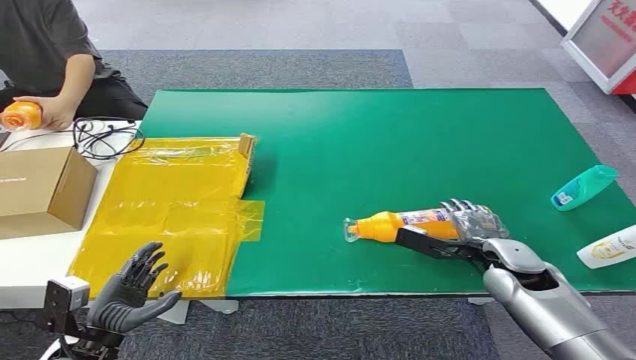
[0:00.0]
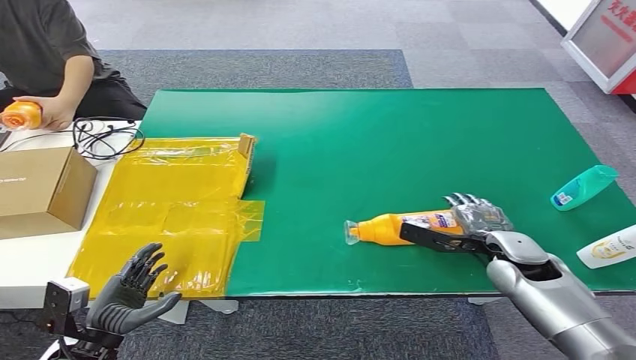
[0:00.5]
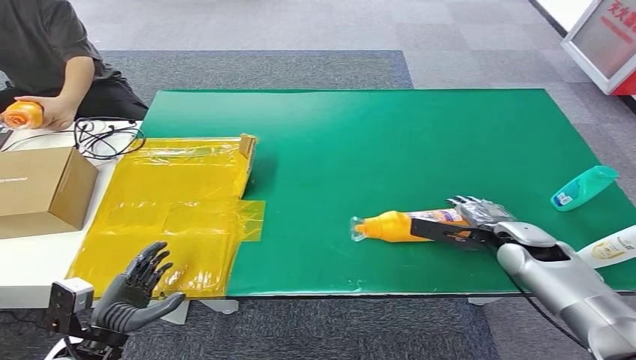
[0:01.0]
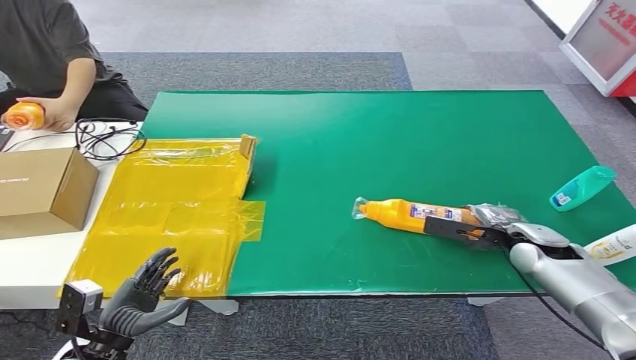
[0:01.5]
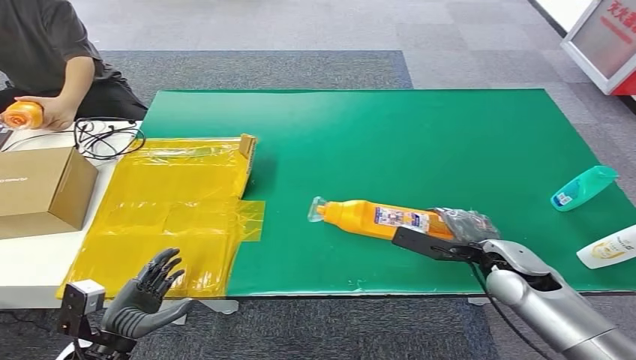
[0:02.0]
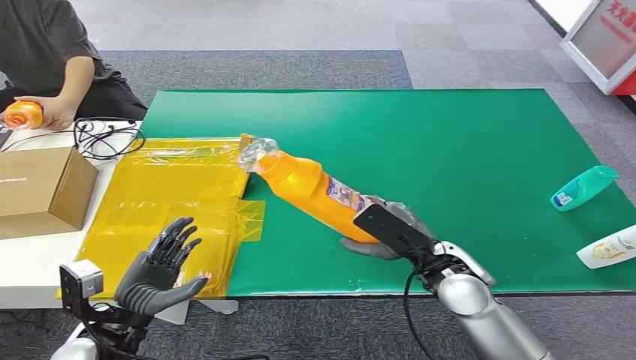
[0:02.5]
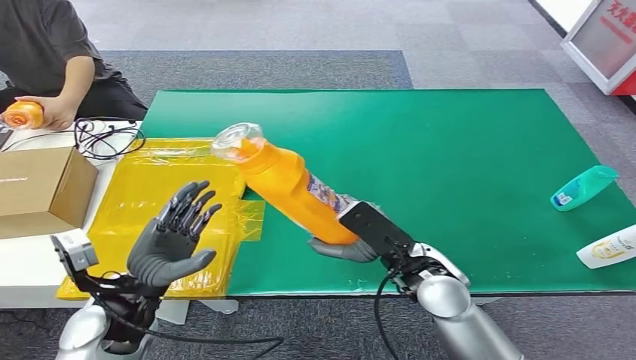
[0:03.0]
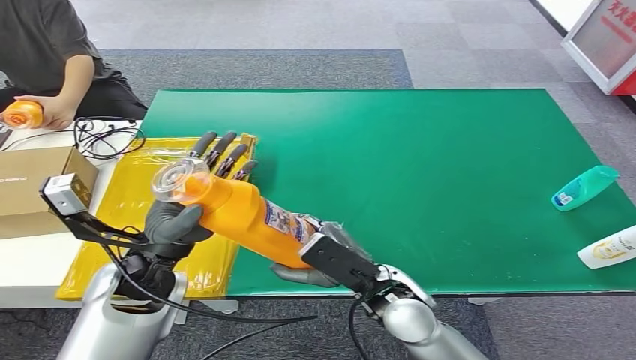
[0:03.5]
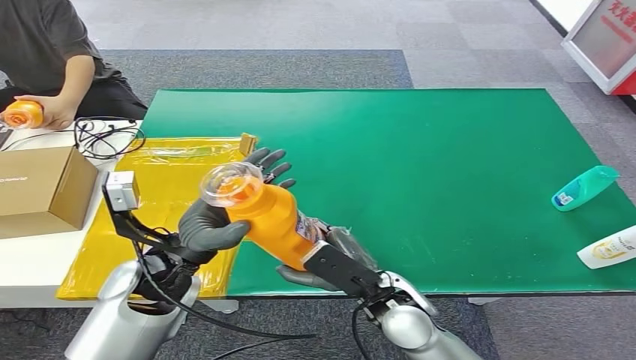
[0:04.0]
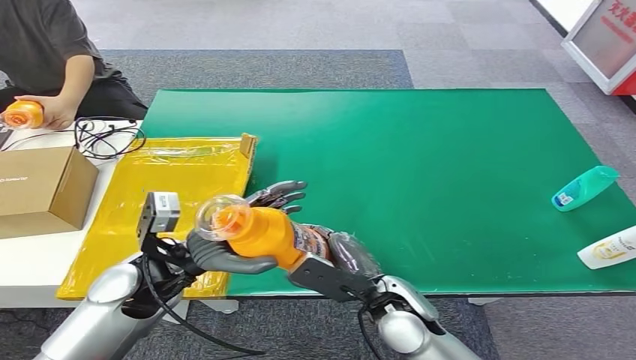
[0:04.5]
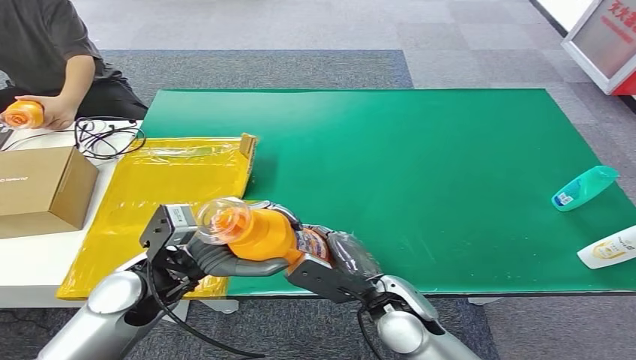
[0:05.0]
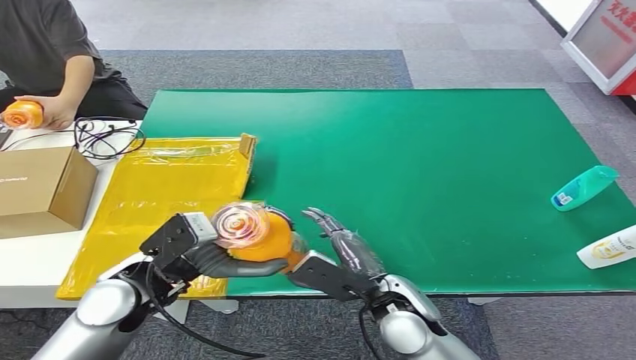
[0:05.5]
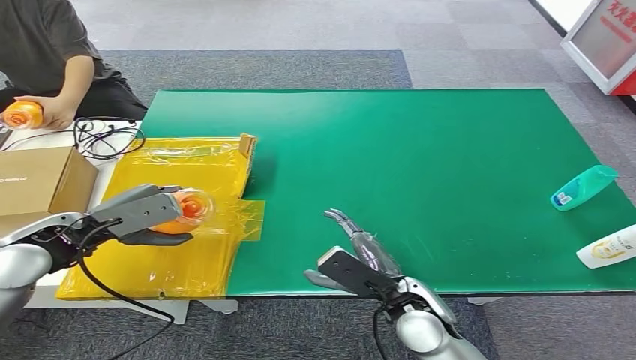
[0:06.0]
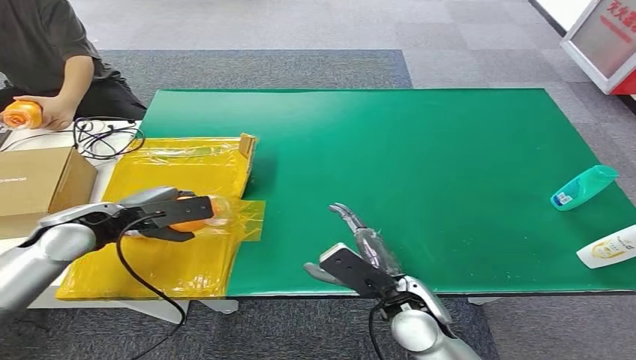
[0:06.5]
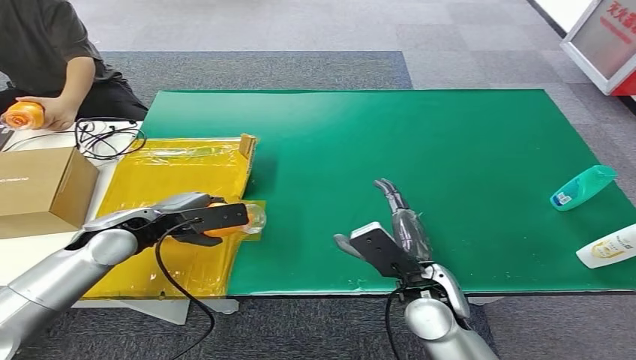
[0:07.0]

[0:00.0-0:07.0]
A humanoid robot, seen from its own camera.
Step, 0:00.0 to 0:02.5: Pick up the bottle from the table.
Step, 0:03.0 to 0:07.0: Turn the bottle to the front side.
0:05.0 to 0:07.0: The left hand heads to the left and forward, covering roughly 15 cm.

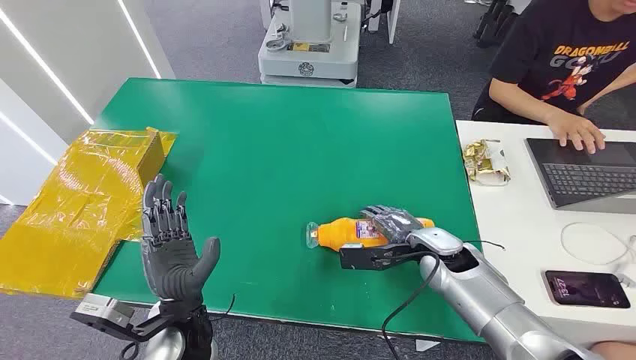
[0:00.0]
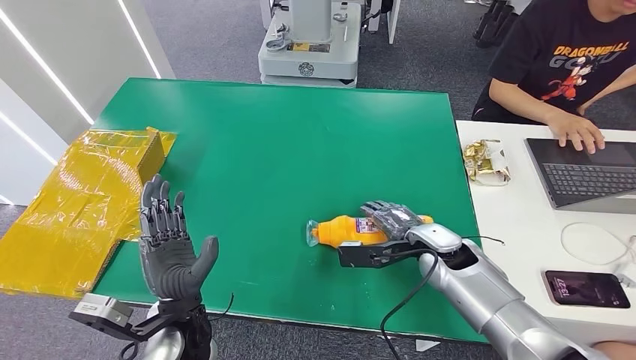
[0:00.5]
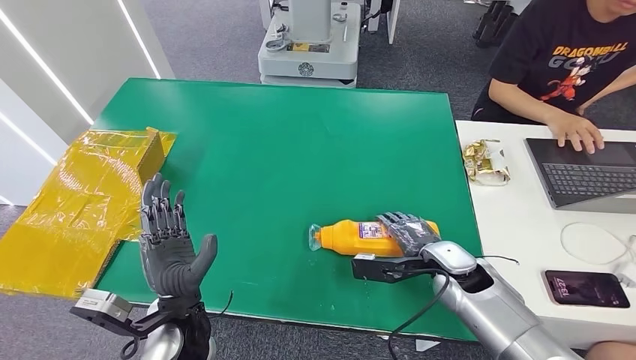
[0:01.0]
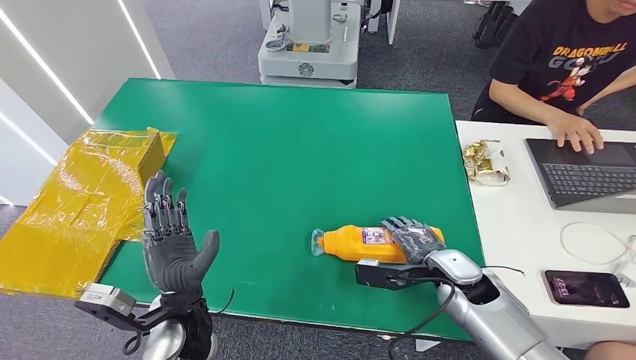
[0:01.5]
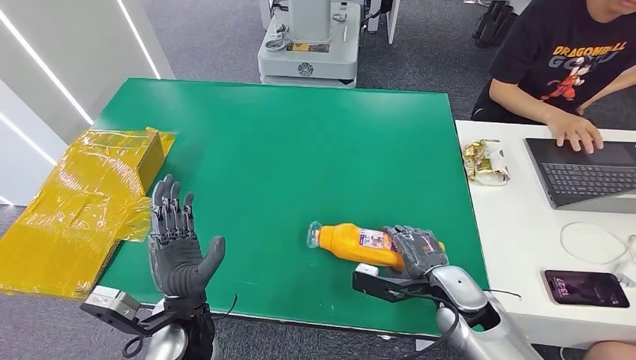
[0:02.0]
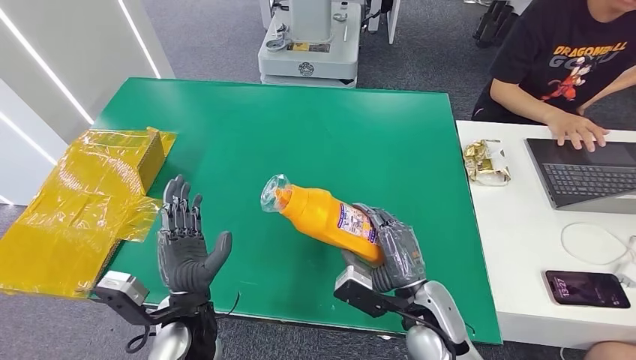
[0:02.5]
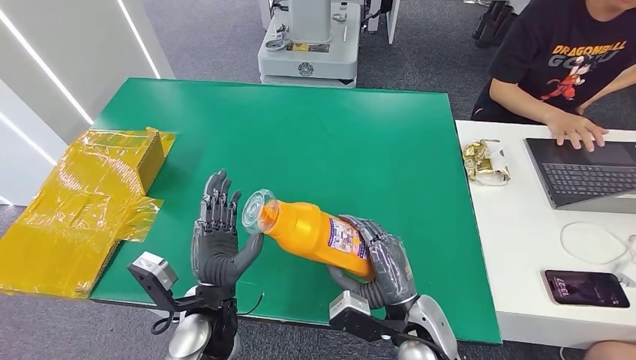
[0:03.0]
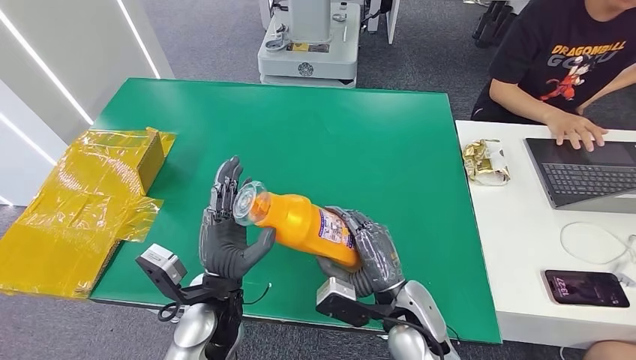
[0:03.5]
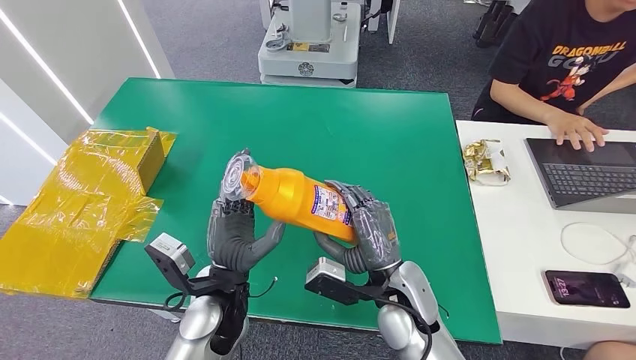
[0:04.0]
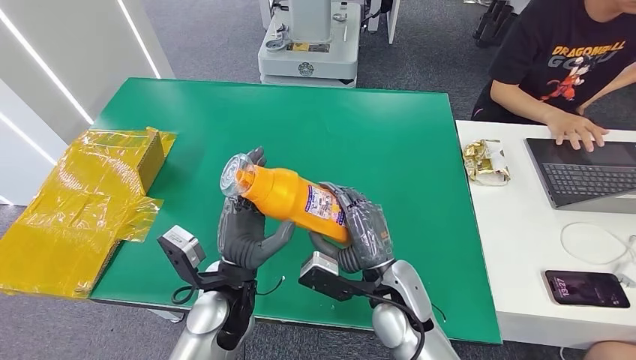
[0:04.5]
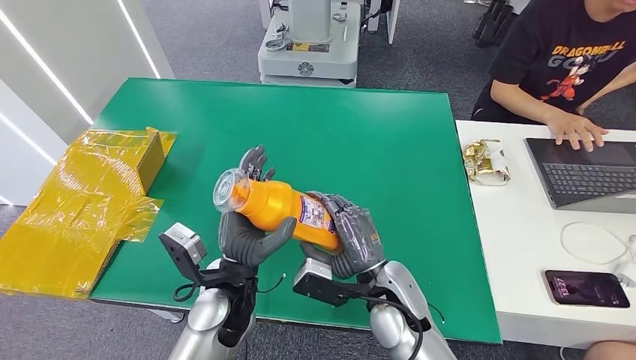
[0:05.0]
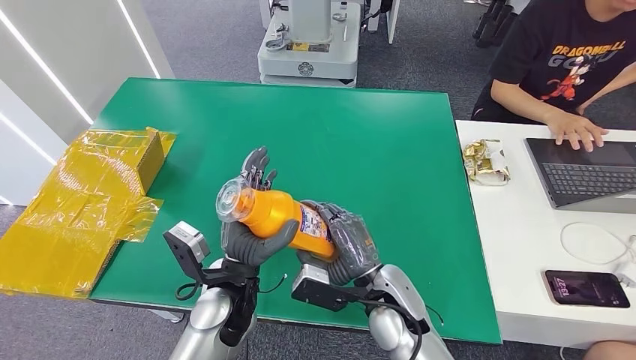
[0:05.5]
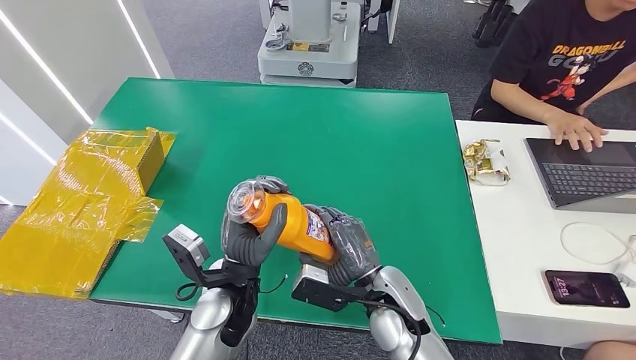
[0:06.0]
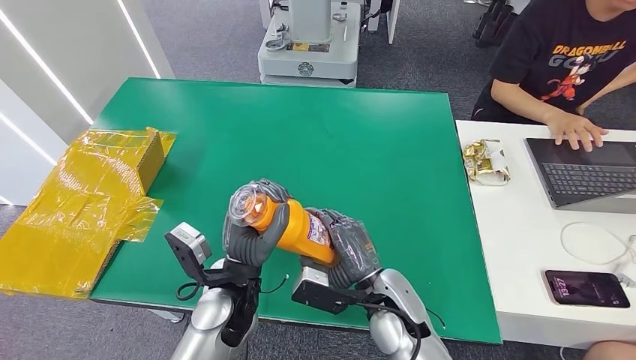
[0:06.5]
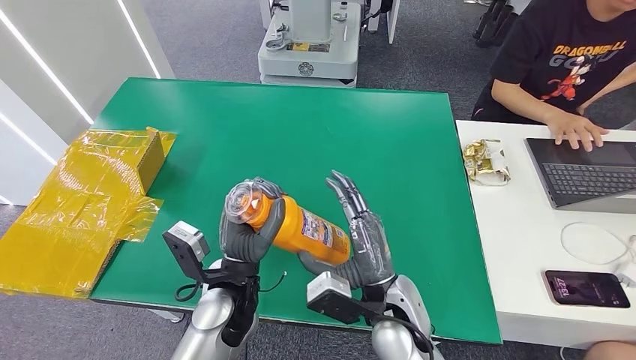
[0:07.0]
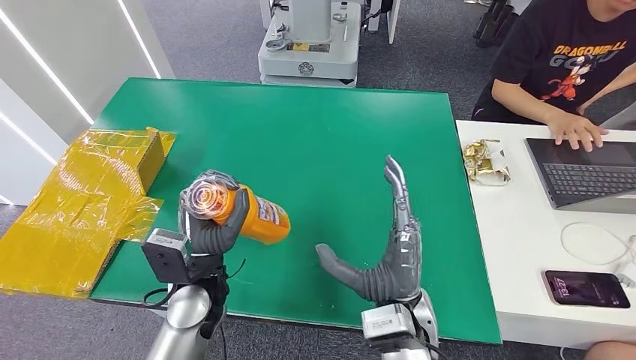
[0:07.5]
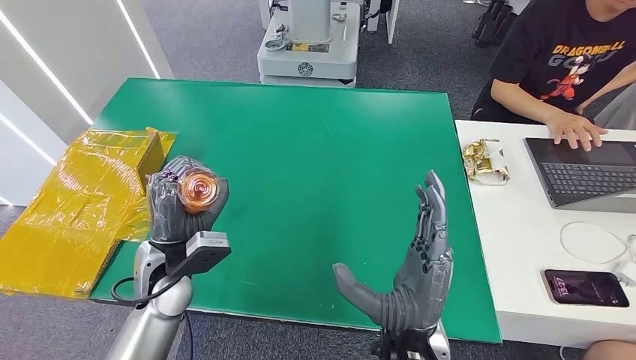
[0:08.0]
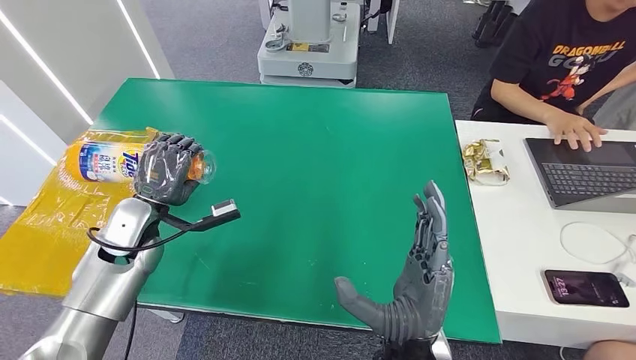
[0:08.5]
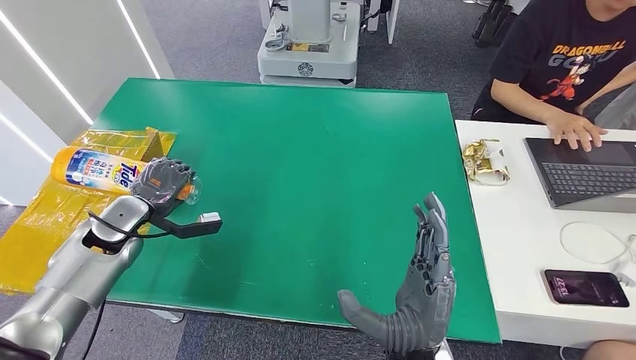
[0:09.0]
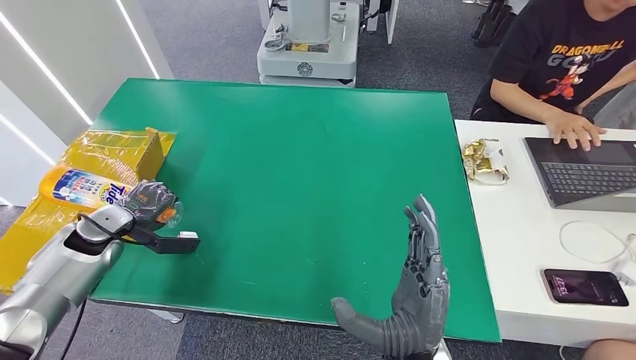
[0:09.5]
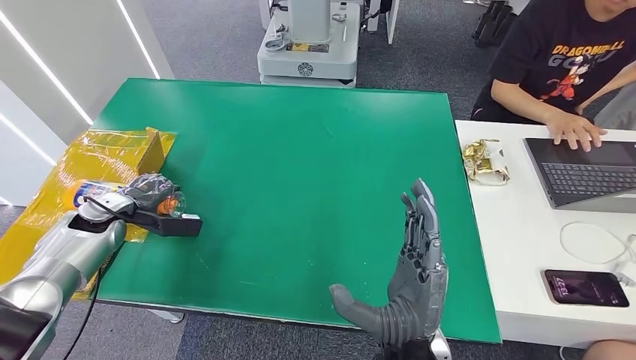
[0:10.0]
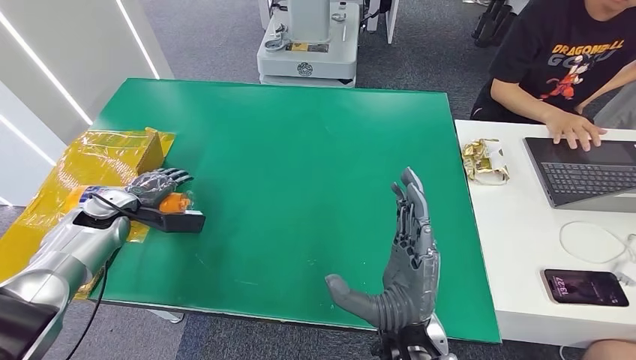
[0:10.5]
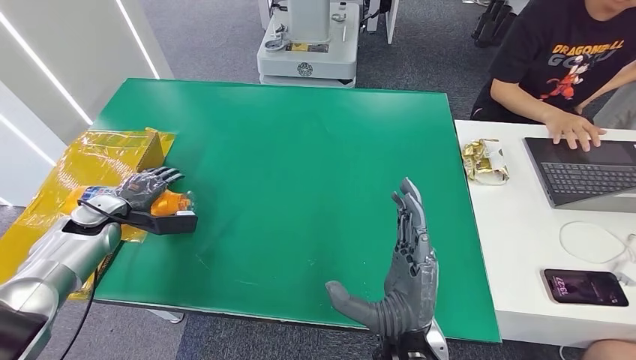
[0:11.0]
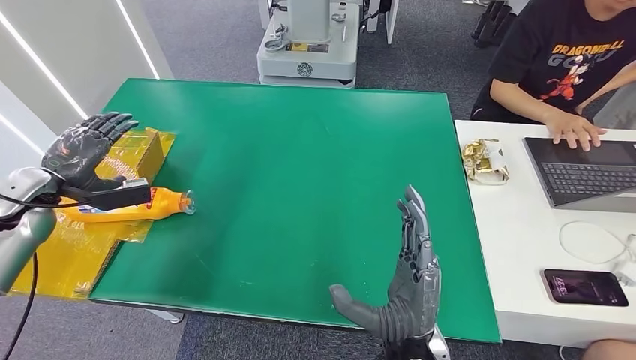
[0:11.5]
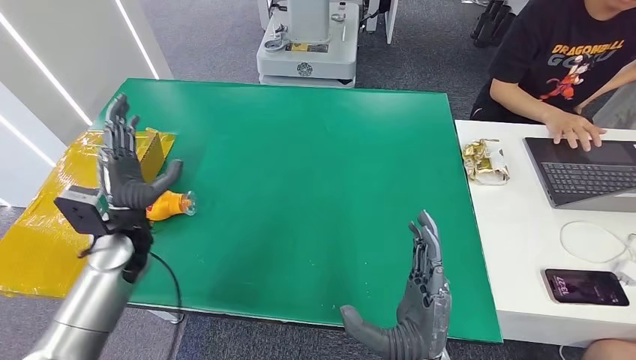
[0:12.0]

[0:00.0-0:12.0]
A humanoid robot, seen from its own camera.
Step, 0:00.0 to 0:03.5: Pick up the bottle from the table.
Step, 0:04.0 to 0:12.0: Turn the bottle to the front side.
0:02.0 to 0:04.0: The right hand travels to the left by some 10 cm; the left hand moves some 5 cm.
0:04.0 to 0:06.0: The hands make only small movements.
0:06.0 to 0:08.0: The left hand heads to the left, covering approximately 10 cm, while the right hand is displaced backward and upward by approximately 10 cm.
0:08.0 to 0:10.0: The left hand moves to the left and forward, about 25 cm.
0:10.0 to 0:12.0: The left hand moves to the right and backward, about 15 cm.
